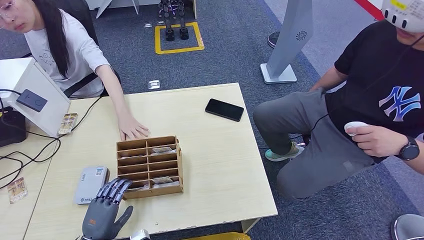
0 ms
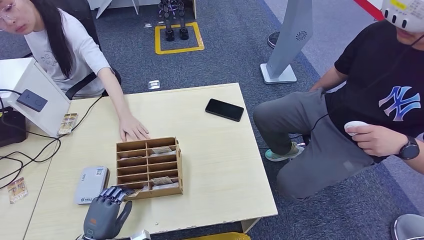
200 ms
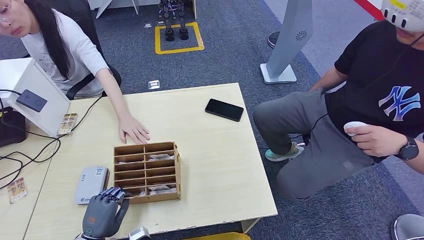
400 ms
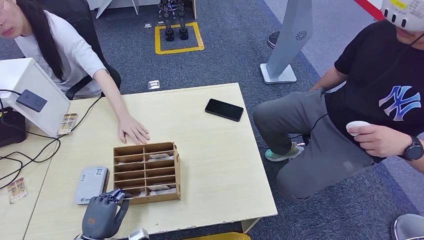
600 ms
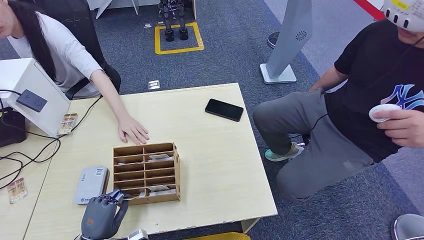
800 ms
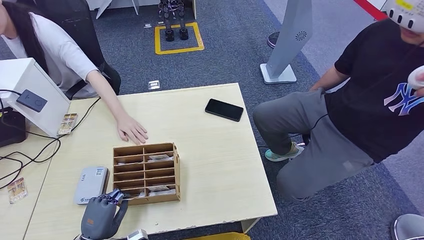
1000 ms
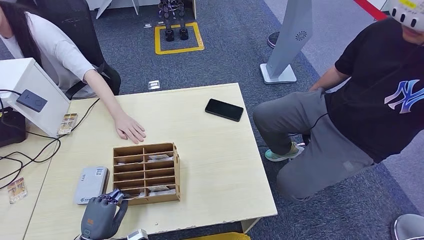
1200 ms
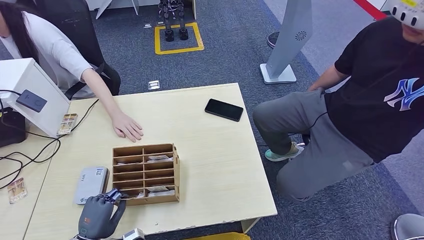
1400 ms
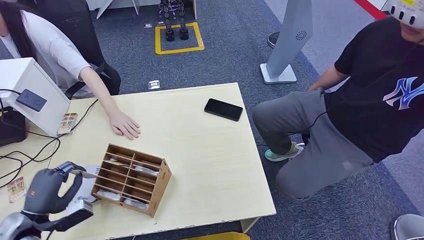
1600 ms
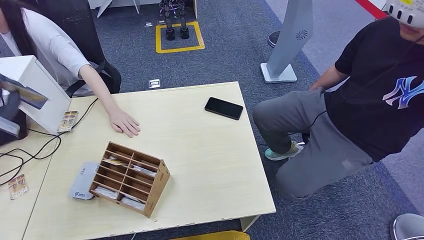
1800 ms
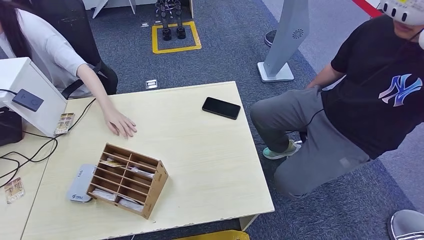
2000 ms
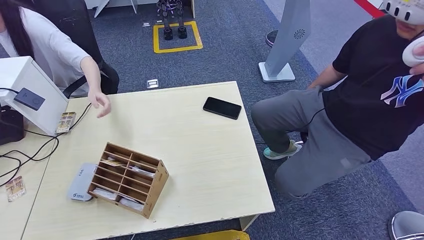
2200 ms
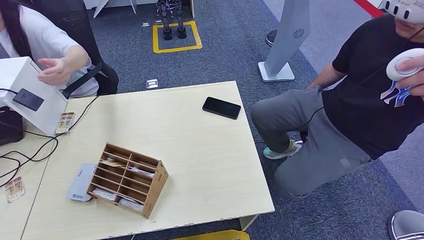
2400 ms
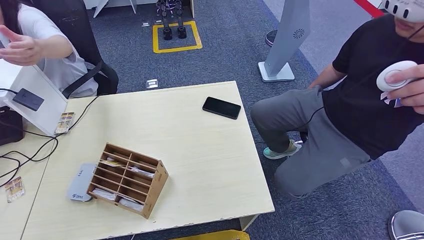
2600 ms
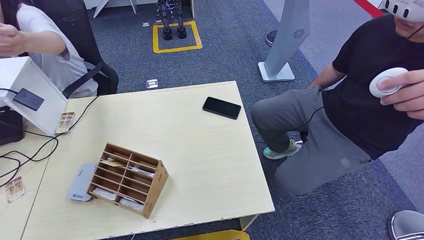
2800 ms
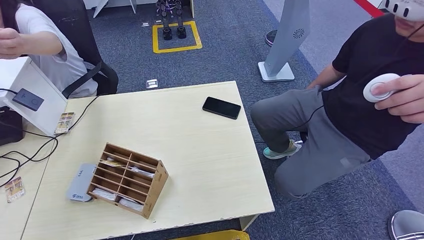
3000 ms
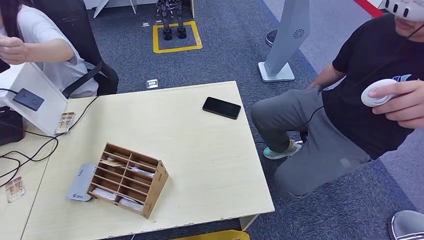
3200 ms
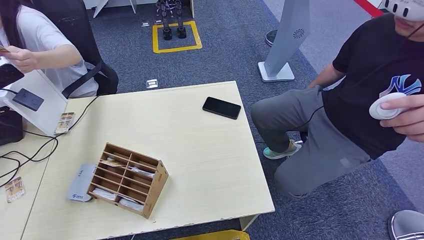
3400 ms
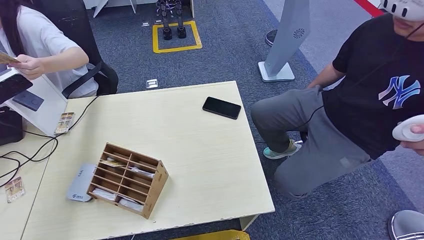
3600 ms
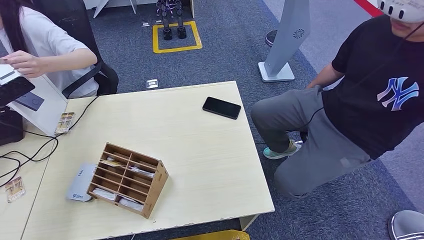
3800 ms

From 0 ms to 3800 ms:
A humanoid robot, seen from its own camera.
Step, from 2400 ms to 3800 ms: Hand the room key to the person.
From 0 ms to 1200 ms: Neither hand changes place.
From 2600 ms to 3800 ms: The left hand heads downward and forward, covering some 15 cm.
